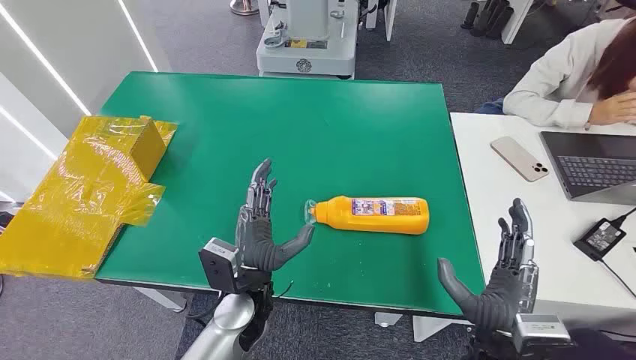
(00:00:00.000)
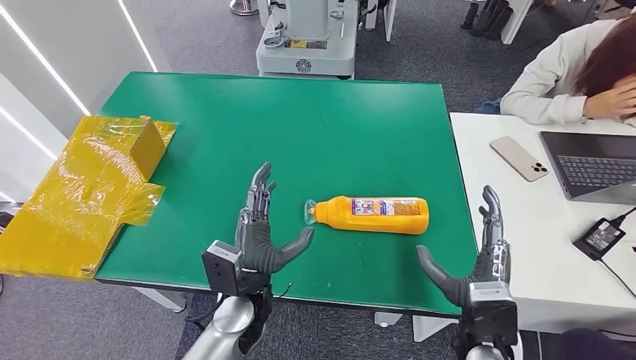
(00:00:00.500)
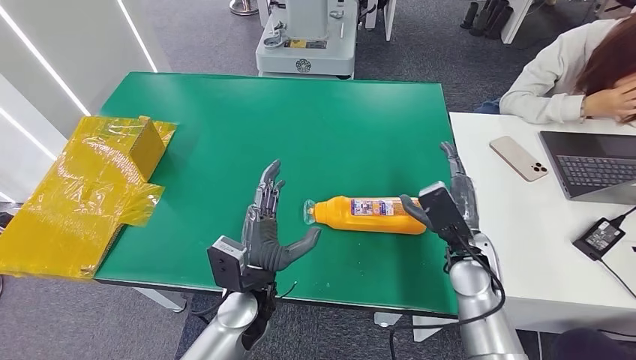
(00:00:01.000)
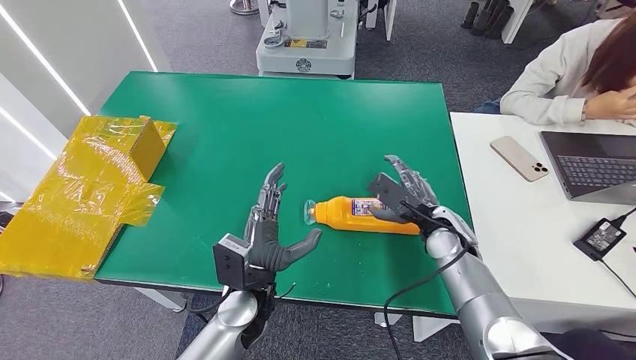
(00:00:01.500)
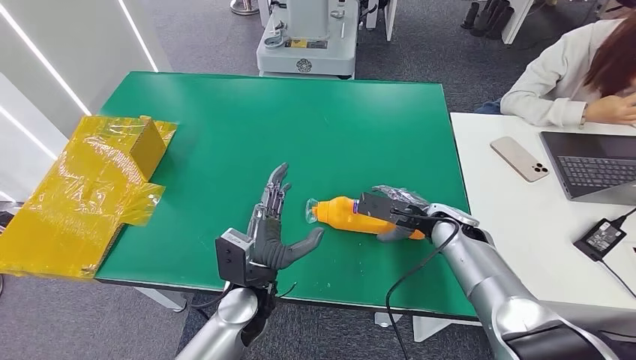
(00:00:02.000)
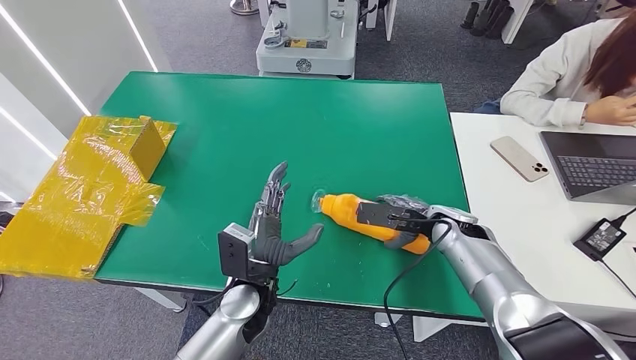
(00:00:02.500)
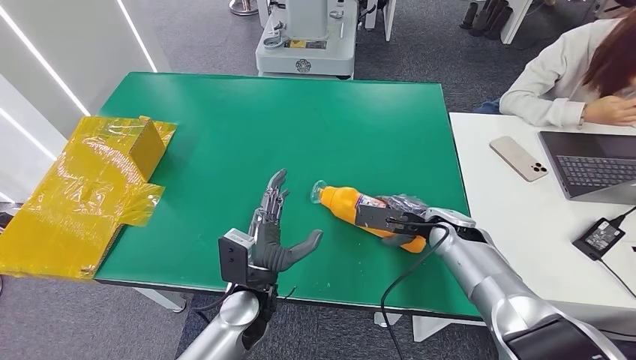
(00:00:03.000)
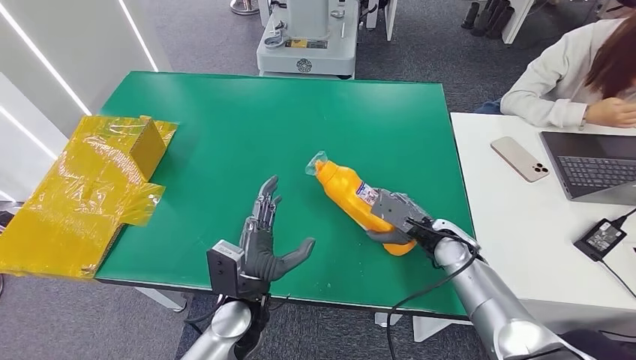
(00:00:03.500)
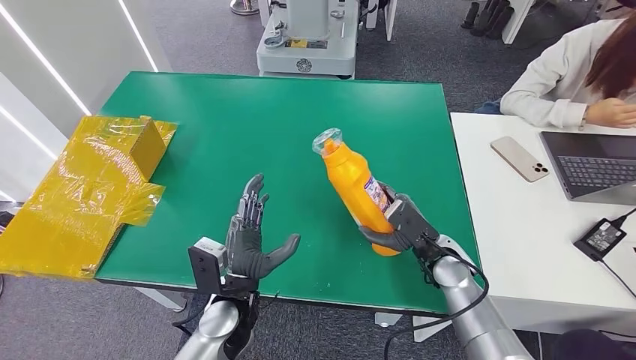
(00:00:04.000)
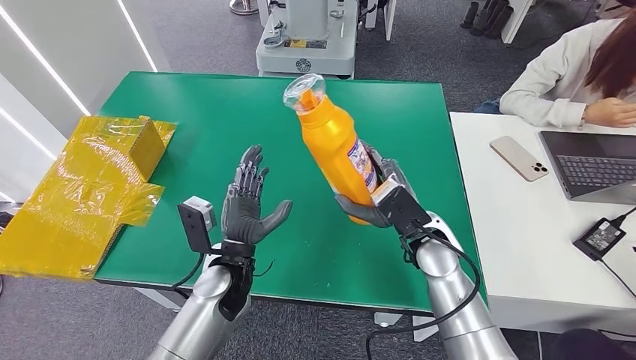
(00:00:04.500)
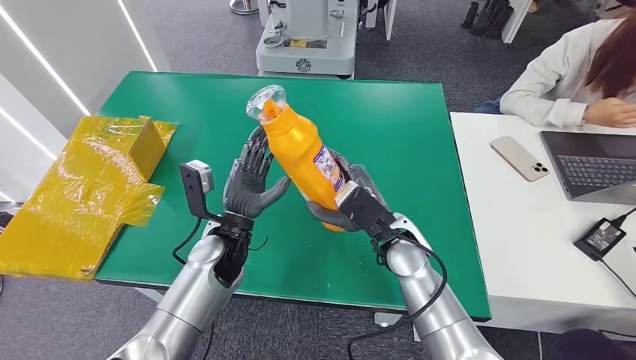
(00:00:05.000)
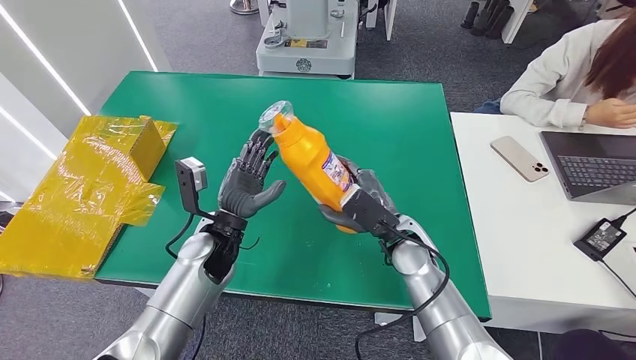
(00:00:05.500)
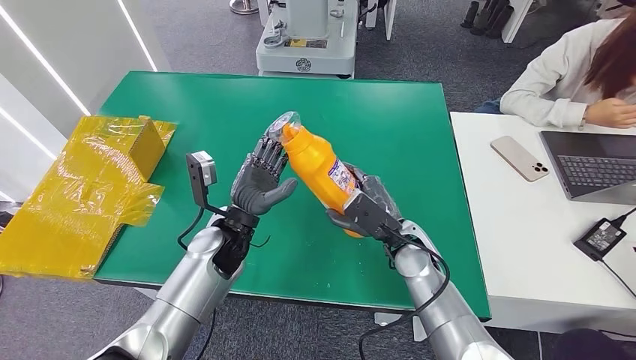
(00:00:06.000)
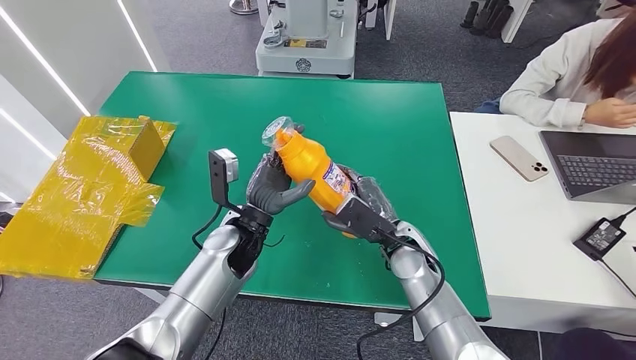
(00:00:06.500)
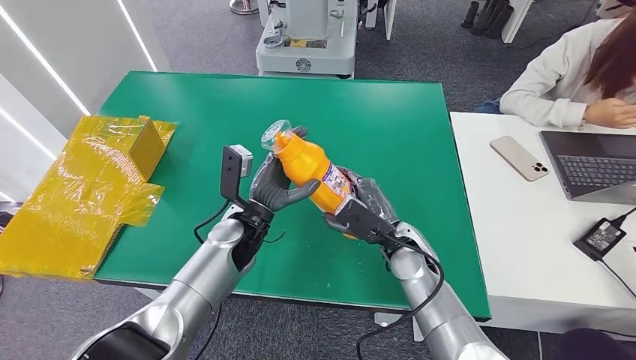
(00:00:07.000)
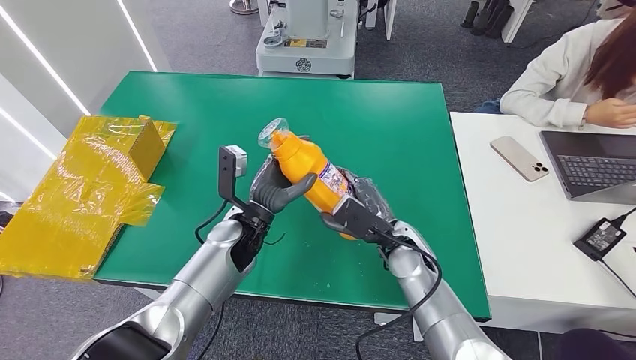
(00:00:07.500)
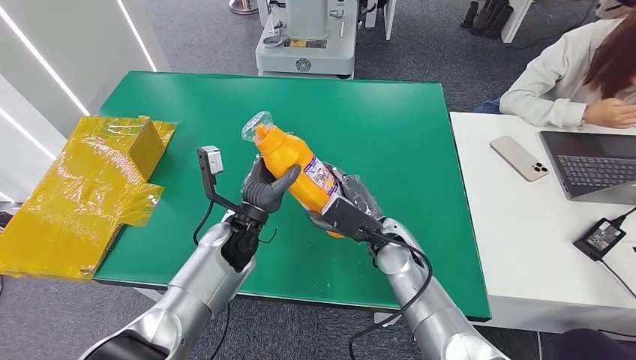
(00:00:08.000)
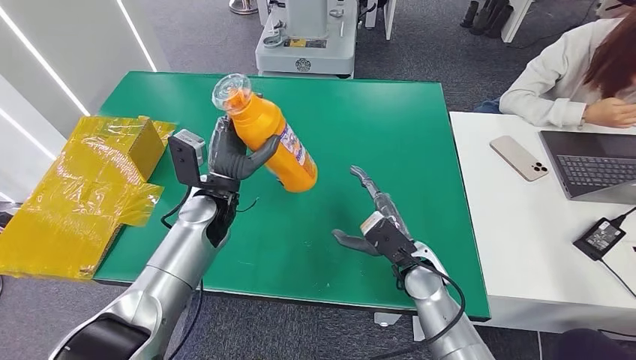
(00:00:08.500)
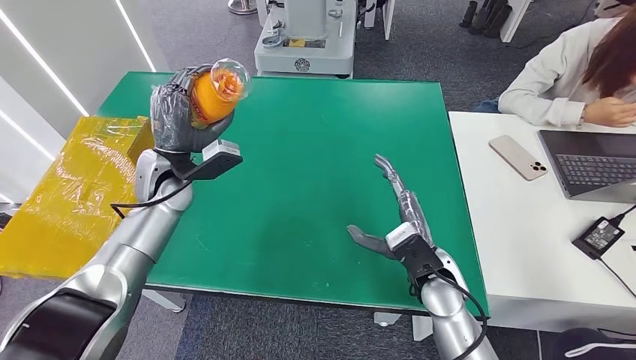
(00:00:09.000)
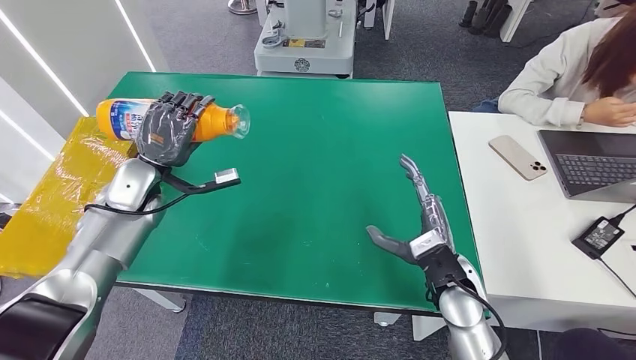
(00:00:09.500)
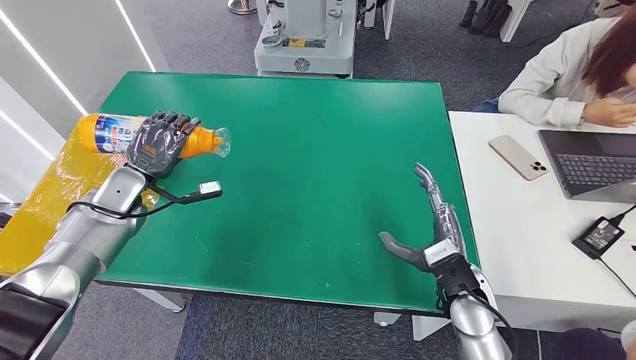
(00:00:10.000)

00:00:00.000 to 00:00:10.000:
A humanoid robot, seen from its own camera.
Step, 00:00:00.000 to 00:00:05.000: Pick up the bottle from the table.
00:00:02.000 to 00:00:04.000: The right hand travels backward by roughly 5 cm.
00:00:04.000 to 00:00:06.000: The left hand goes about 10 cm forward and upward. Meanwhile the right hand shifts some 5 cm to the left.
00:00:06.000 to 00:00:08.000: The hands stay close to where they were, moving slightly.

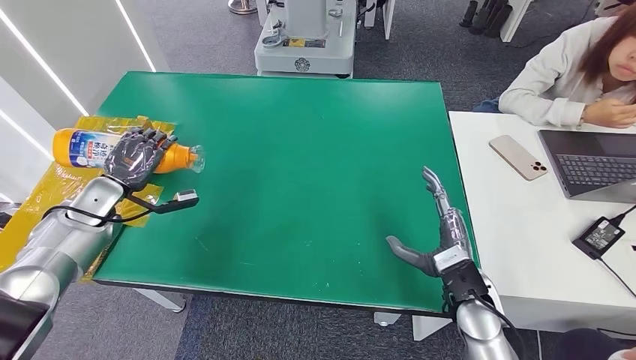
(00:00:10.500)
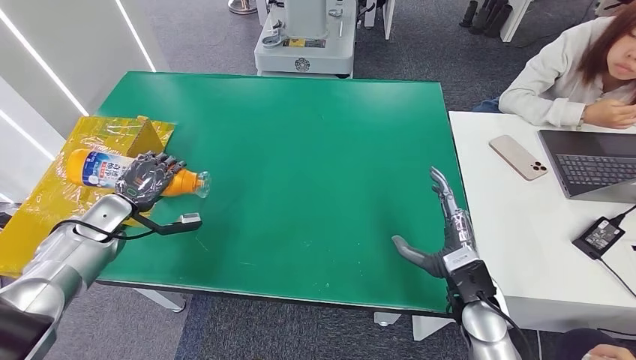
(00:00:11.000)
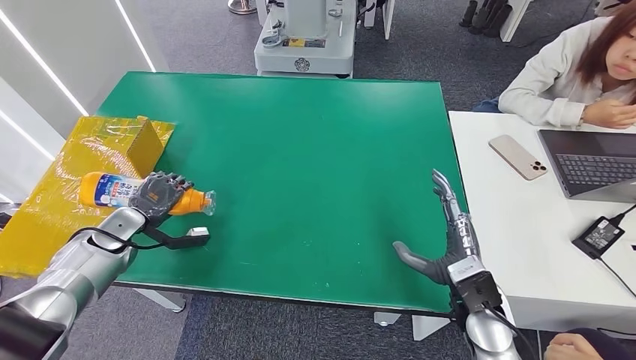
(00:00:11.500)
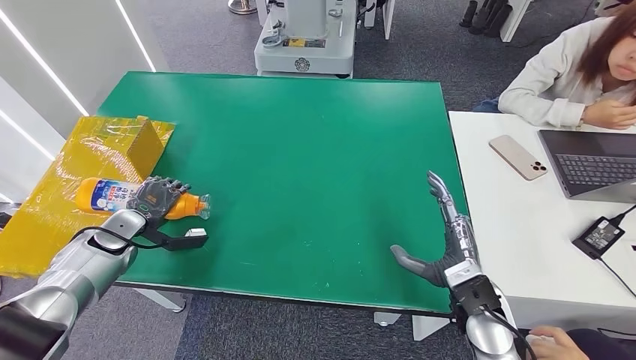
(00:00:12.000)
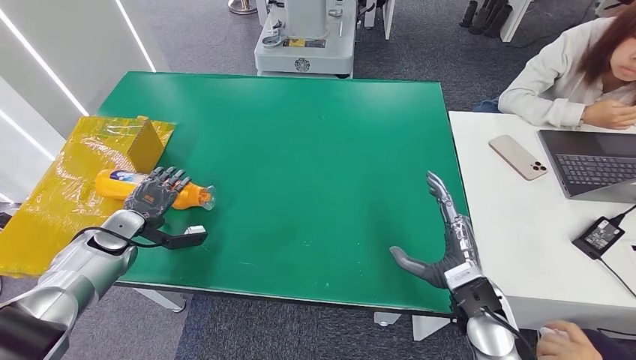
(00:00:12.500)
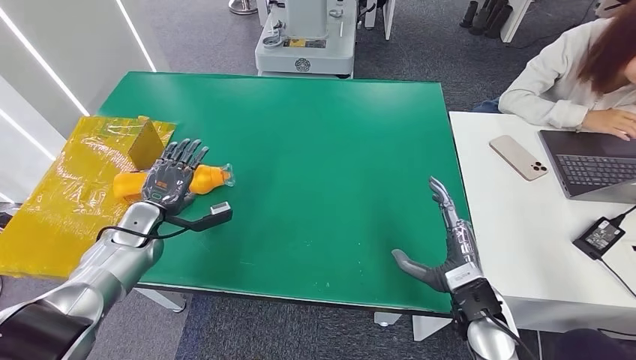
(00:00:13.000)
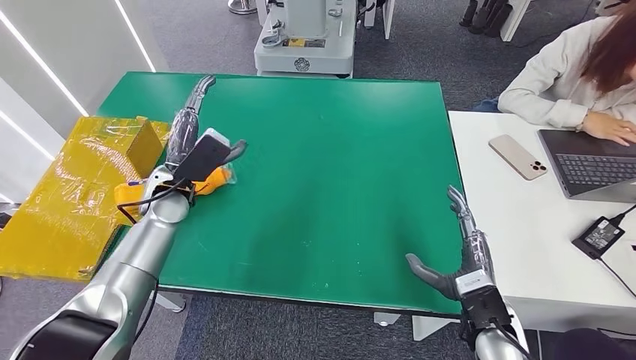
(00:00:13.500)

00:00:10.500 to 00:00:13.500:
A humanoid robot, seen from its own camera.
Step, 00:00:10.500 to 00:00:13.500: Turn the bottle to the front side.
00:00:10.500 to 00:00:12.000: The left hand goes roughly 5 cm downward.
00:00:12.000 to 00:00:13.500: The left hand shifts about 15 cm to the right and upward.
